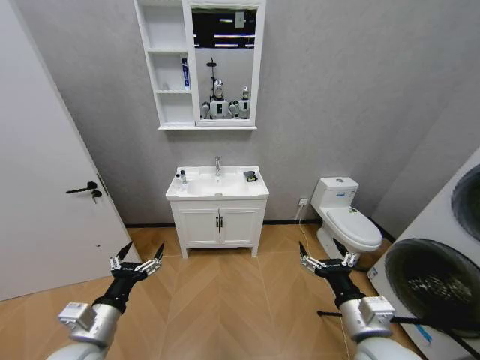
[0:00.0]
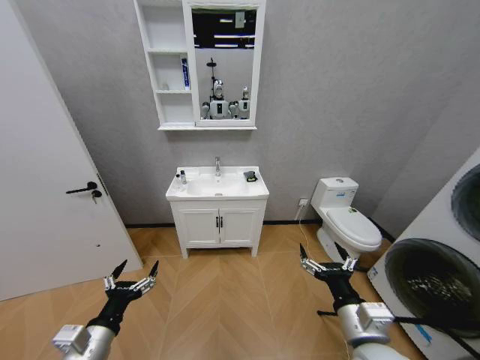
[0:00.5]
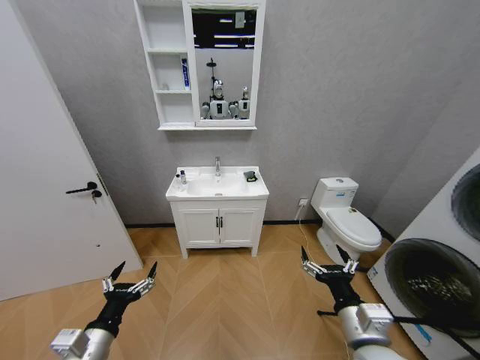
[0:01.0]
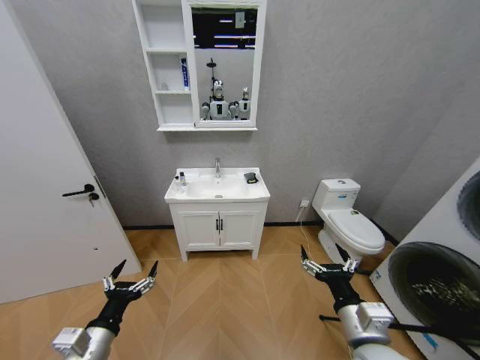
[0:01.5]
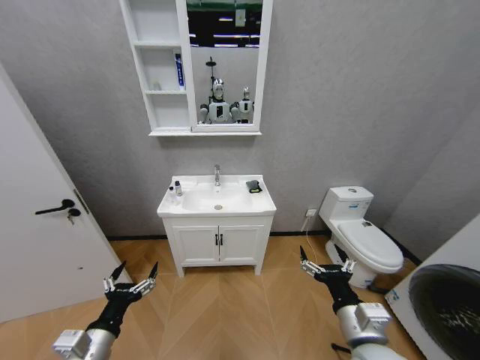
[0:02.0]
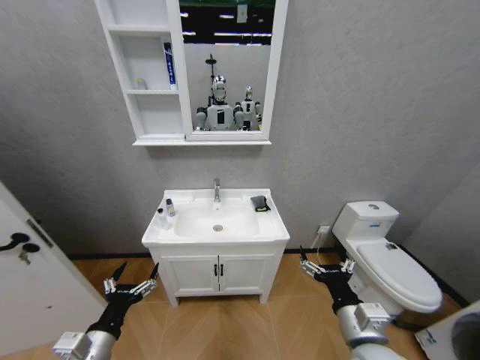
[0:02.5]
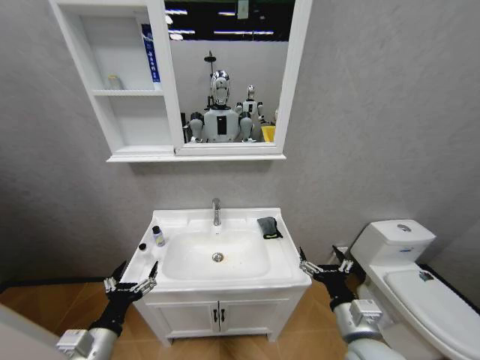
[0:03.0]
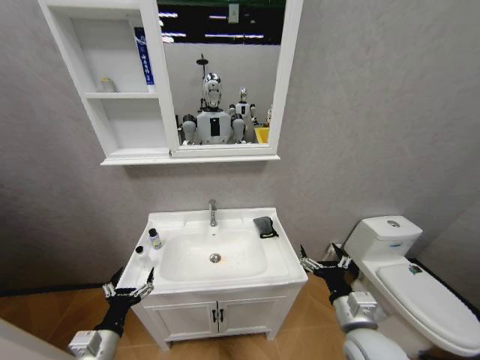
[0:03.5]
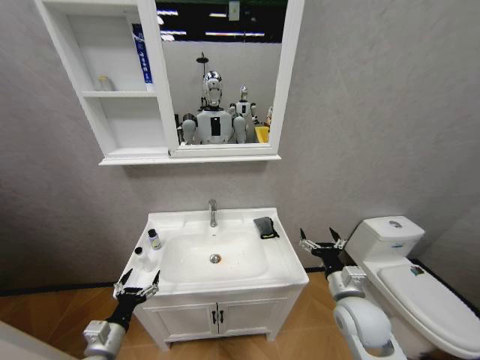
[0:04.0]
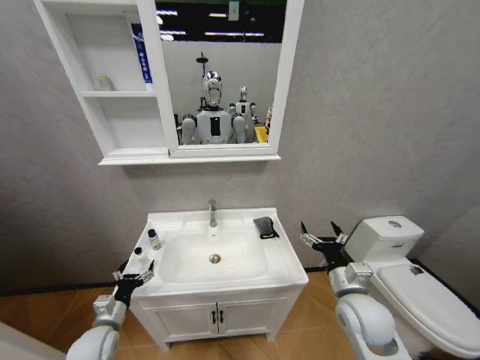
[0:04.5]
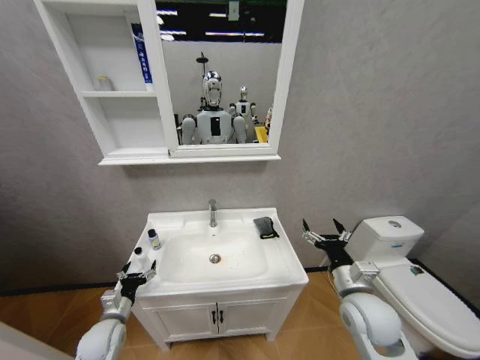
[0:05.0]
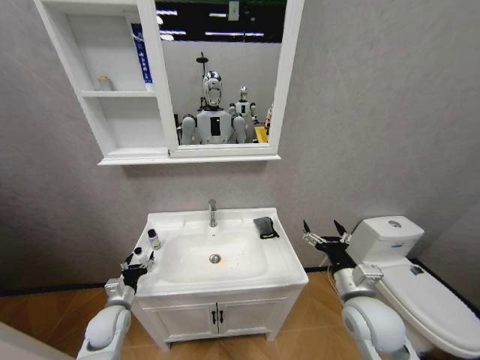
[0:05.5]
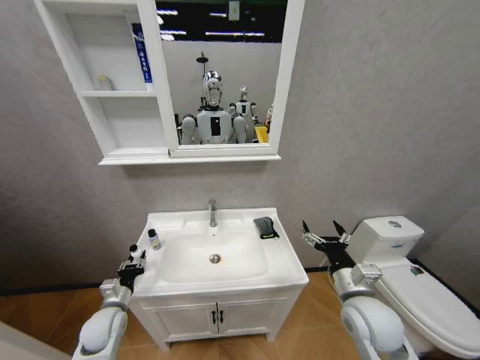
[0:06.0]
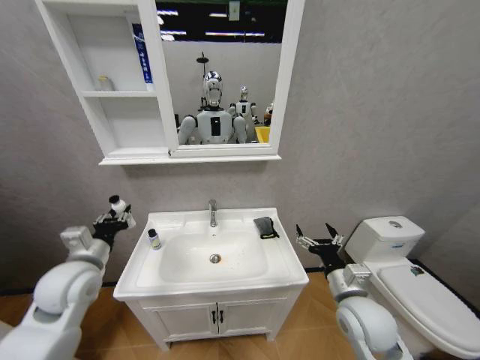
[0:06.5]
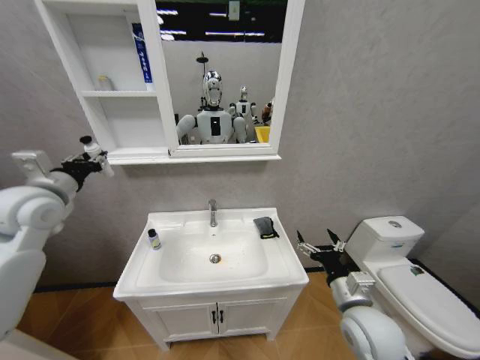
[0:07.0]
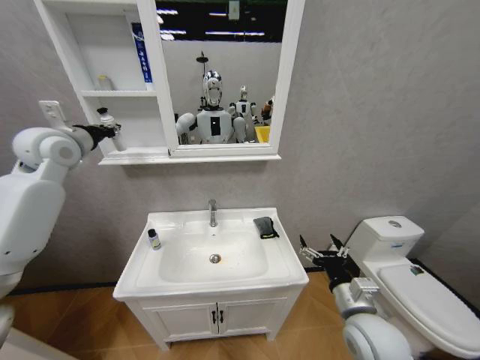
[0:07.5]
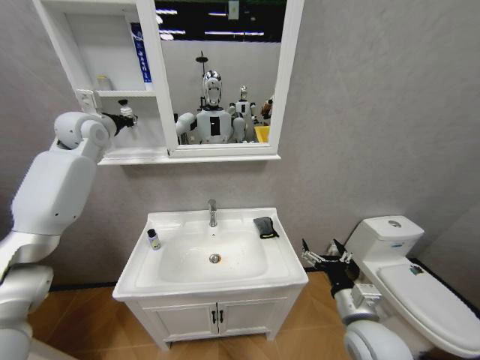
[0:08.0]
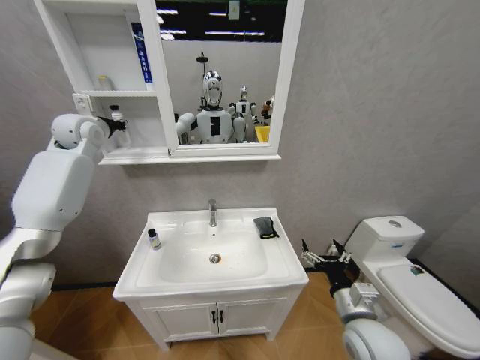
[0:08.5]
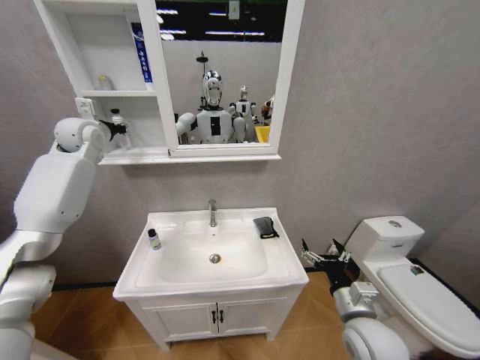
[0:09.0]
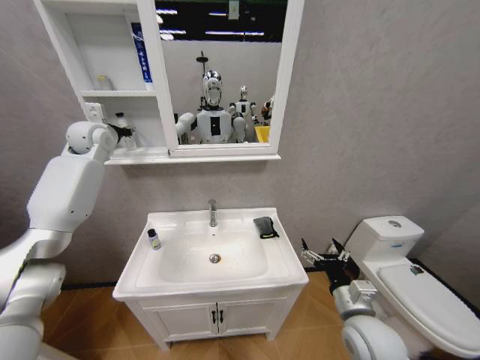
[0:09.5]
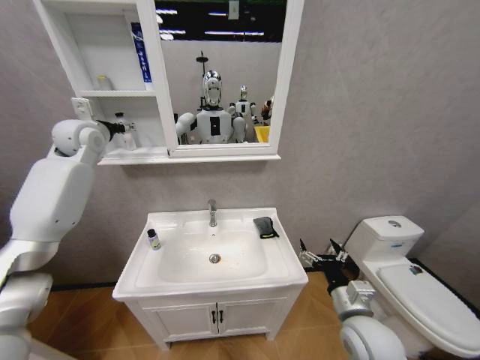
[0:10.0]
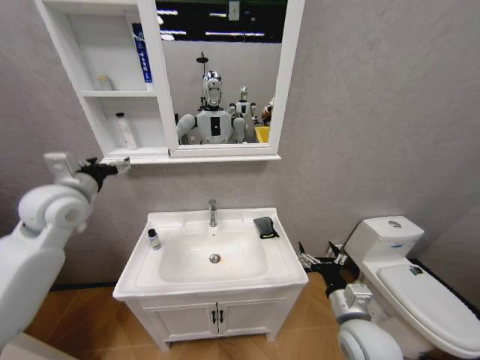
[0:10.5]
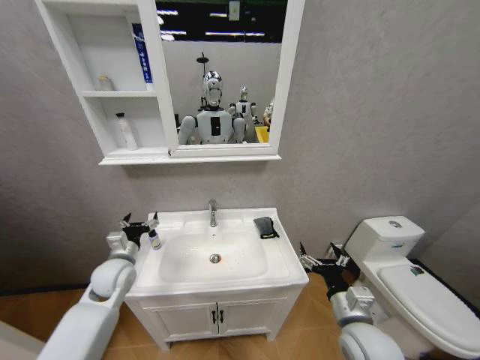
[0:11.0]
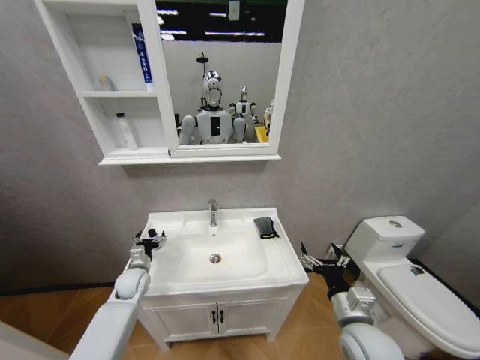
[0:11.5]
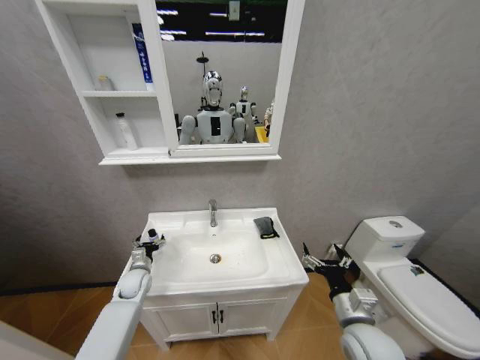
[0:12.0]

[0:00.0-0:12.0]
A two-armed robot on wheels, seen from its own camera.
Task of the whole recording: Move facial cleanser and shampoo from washbasin to cabinet, then wipe washbasin with towel.
0:02.0 to 0:04.0: The right gripper goes about 10 cm forward. The left gripper goes approximately 10 cm downward.
0:04.0 to 0:06.0: The left gripper heads forward, covering approximately 10 cm, and closes its fingers.
0:06.0 to 0:08.0: The left gripper heads upward and forward, covering approximately 50 cm.
0:08.0 to 0:10.0: The left gripper opens its fingers.
0:10.0 to 0:12.0: The left gripper travels downward by some 40 cm.

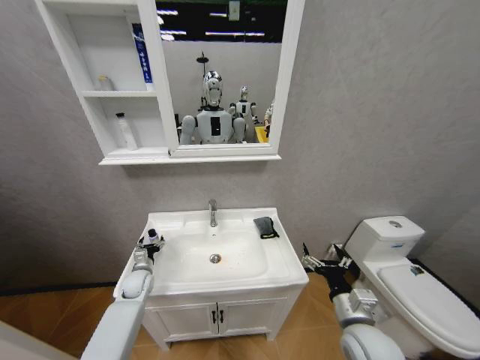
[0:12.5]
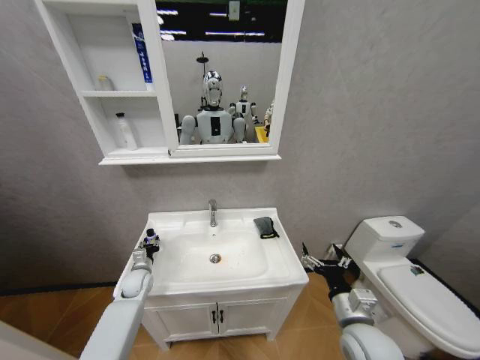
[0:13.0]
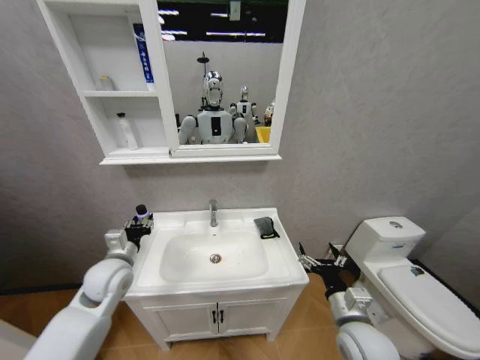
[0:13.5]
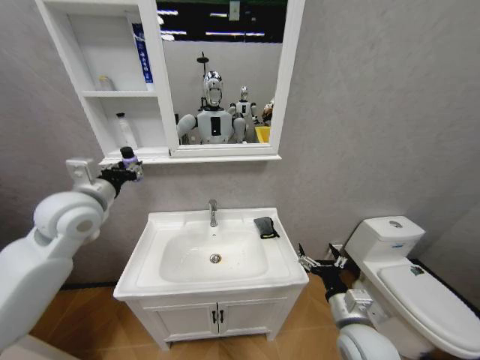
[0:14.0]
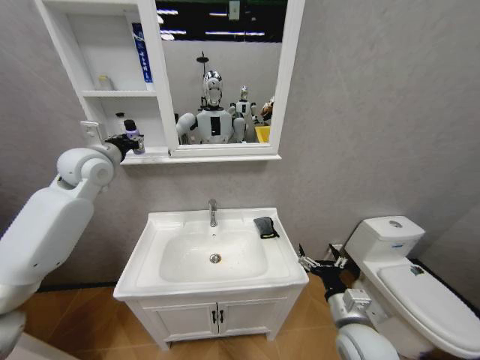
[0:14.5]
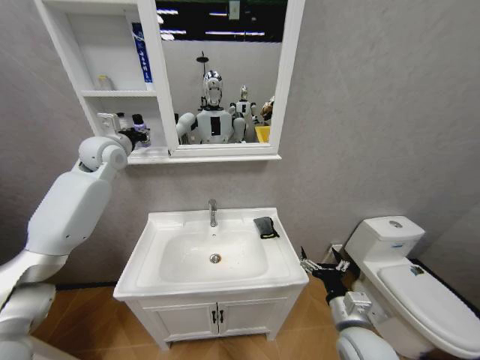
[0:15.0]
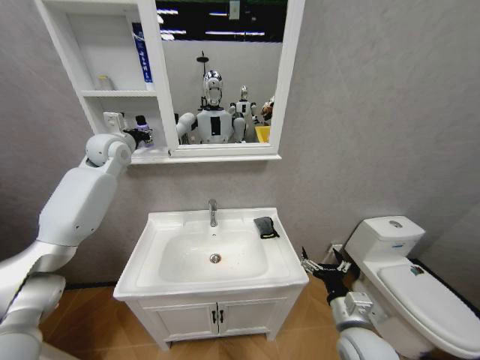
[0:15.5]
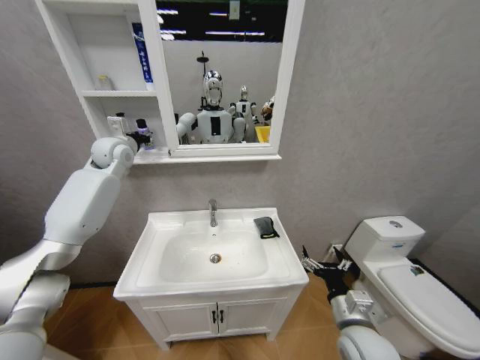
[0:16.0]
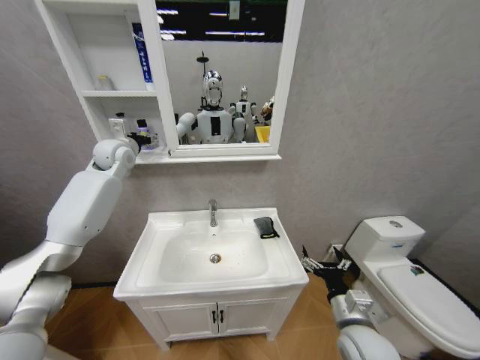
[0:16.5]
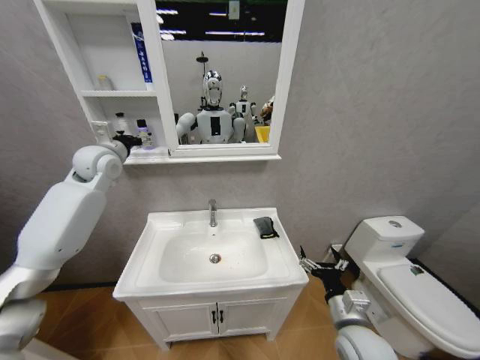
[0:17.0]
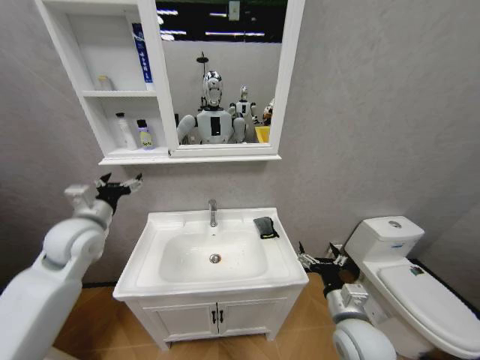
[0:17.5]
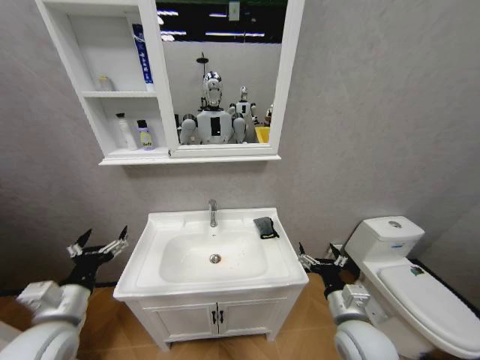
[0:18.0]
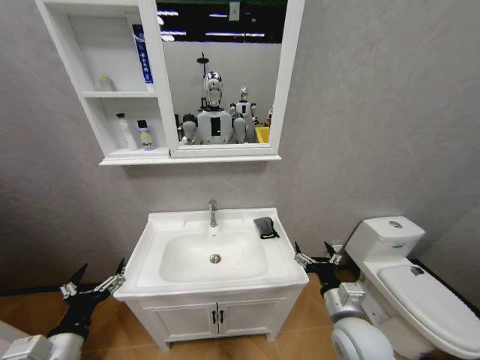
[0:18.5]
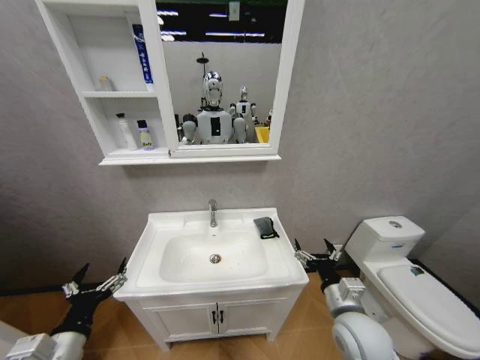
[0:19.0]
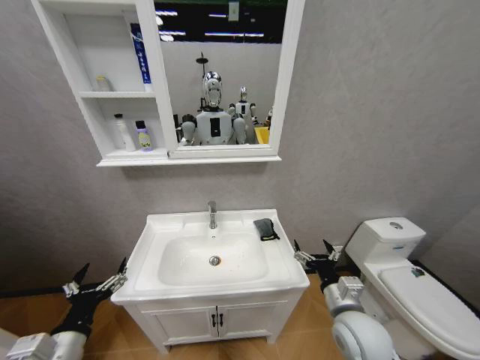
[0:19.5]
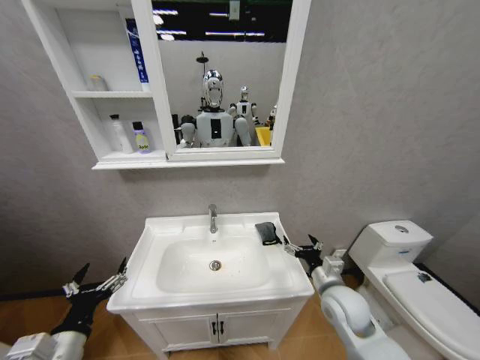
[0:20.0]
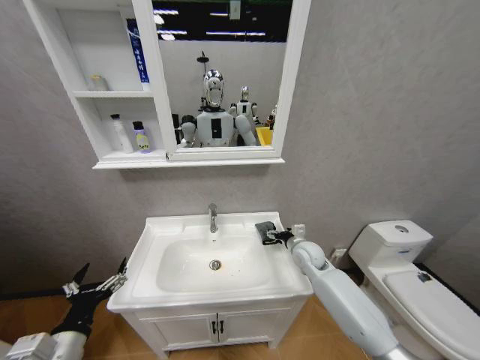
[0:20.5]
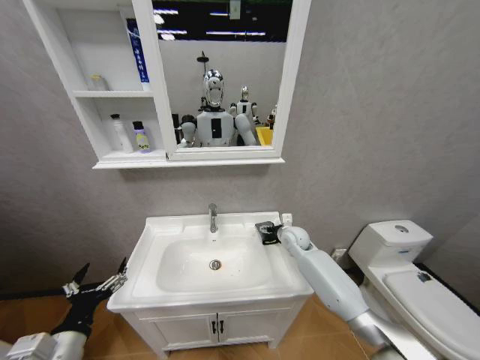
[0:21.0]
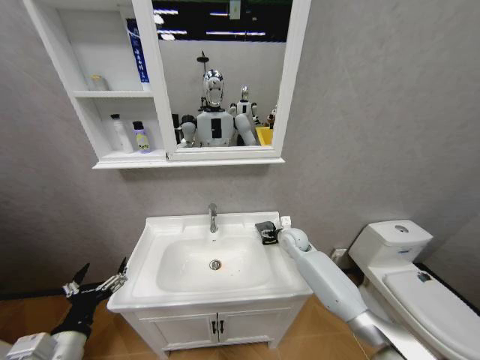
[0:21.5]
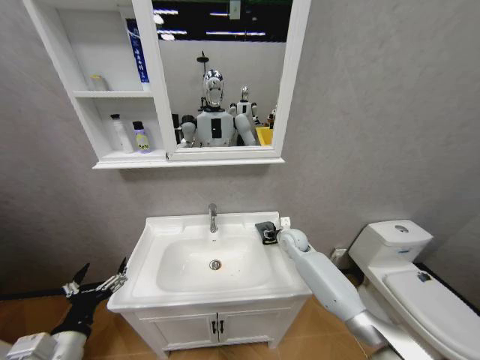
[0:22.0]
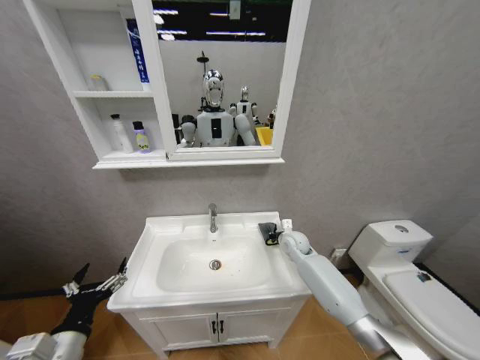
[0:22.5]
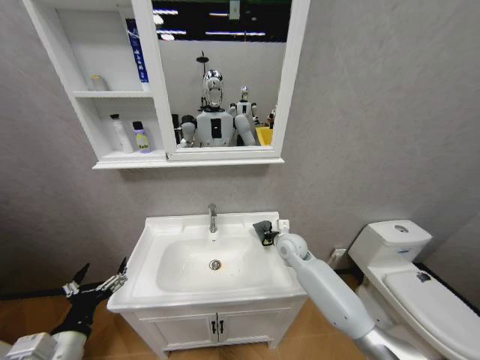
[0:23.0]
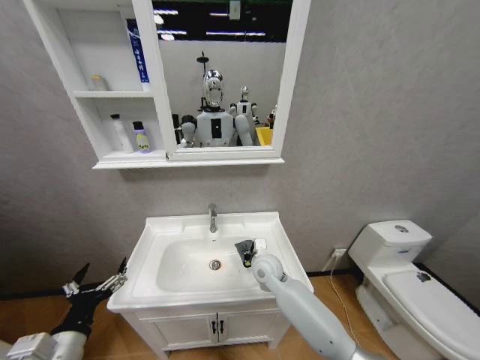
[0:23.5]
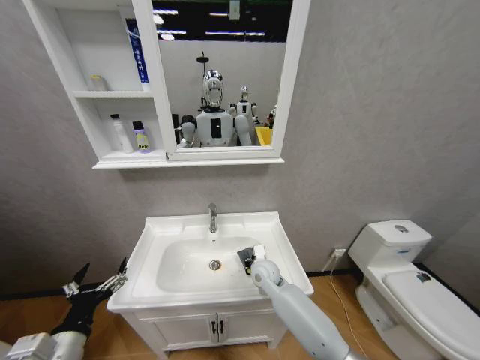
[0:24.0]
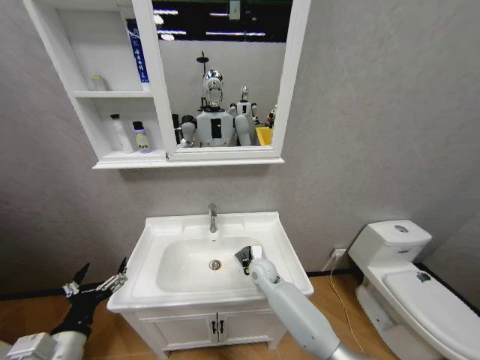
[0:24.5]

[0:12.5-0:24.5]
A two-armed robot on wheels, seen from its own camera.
Task of the whole recording: Move facial cleanser and shampoo from washbasin to cabinet, then wipe washbasin with towel.
0:12.5 to 0:14.5: The left gripper travels upward by some 40 cm, and closes up.
0:14.5 to 0:16.5: The left gripper moves forward, some 10 cm, and opens.
0:16.5 to 0:18.5: The left gripper heads backward and downward, covering approximately 50 cm.
0:18.5 to 0:20.5: The right gripper moves forward, approximately 25 cm.
0:20.5 to 0:22.5: The right gripper goes roughly 5 cm forward, and closes its fingers.
0:22.5 to 0:24.5: The right gripper heads to the left, backward and downward, covering approximately 15 cm.

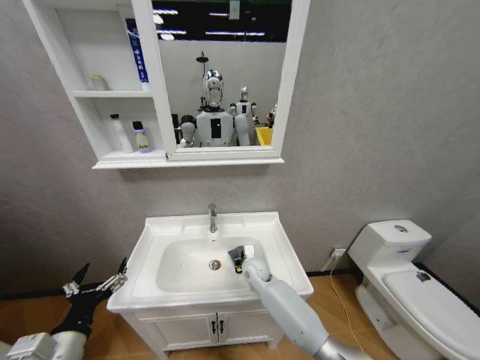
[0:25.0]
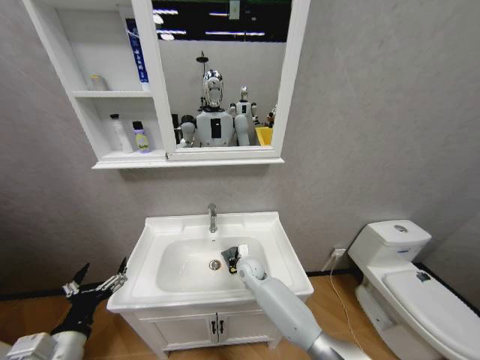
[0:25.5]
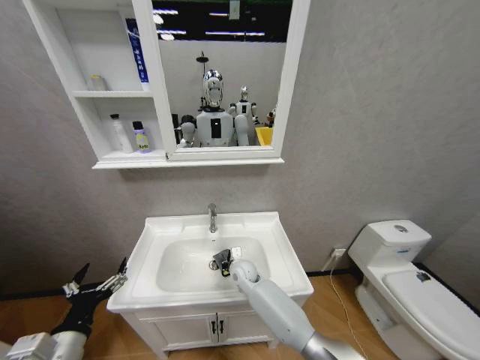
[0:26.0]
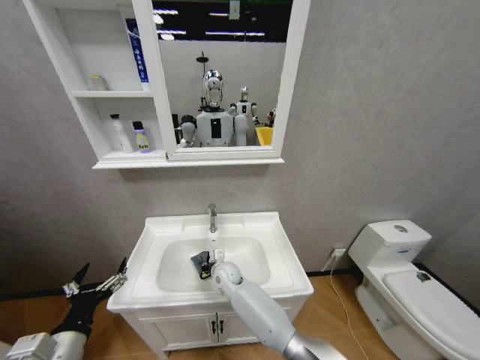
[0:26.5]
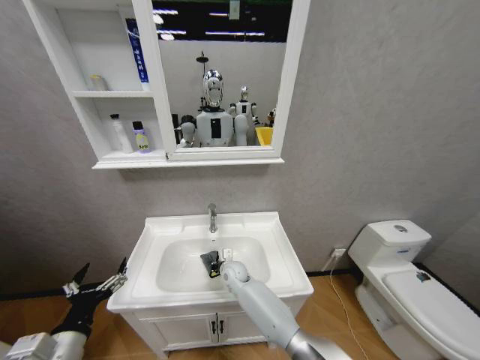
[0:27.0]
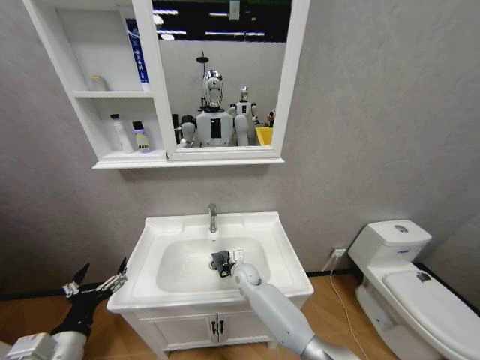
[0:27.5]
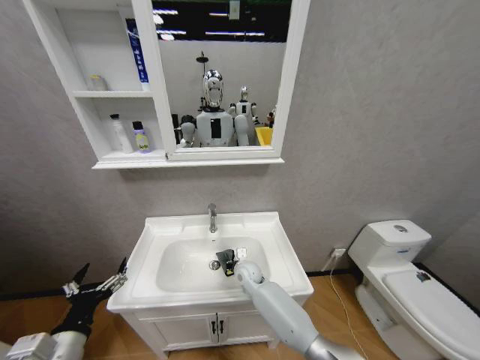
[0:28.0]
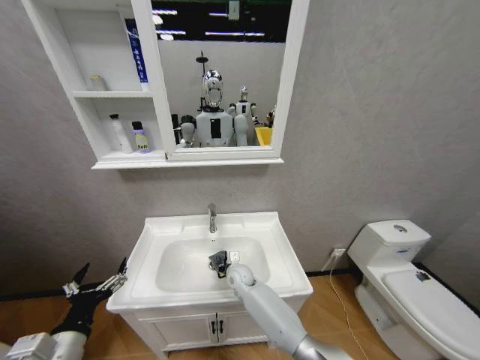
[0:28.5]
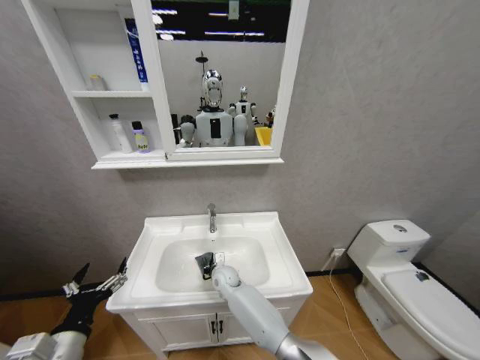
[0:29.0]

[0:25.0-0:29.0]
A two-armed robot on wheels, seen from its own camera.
Task of the whole recording: Move facial cleanser and shampoo from washbasin to cabinet, then wipe washbasin with towel.
0:25.0 to 0:27.0: The right gripper goes some 10 cm to the left.
0:27.0 to 0:29.0: The grippers stay close to where they were, moving slightly.
